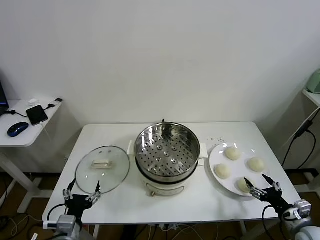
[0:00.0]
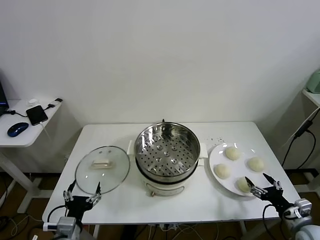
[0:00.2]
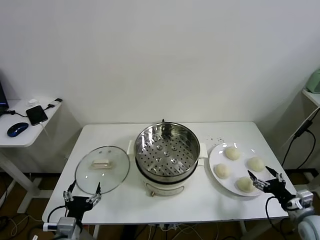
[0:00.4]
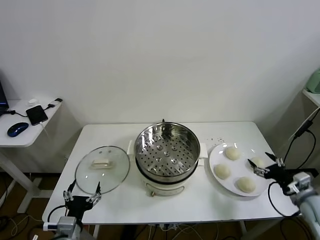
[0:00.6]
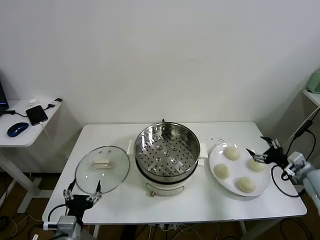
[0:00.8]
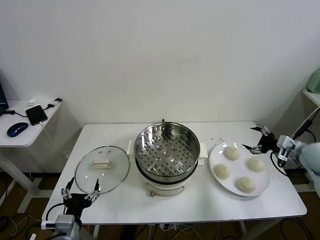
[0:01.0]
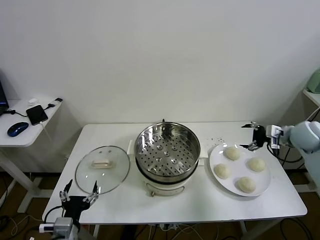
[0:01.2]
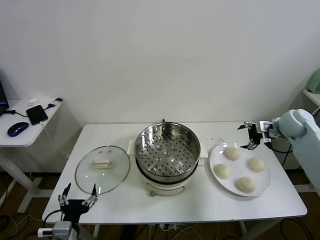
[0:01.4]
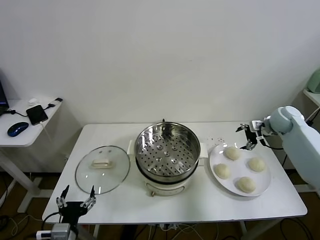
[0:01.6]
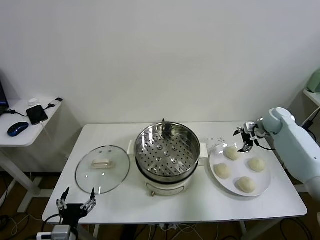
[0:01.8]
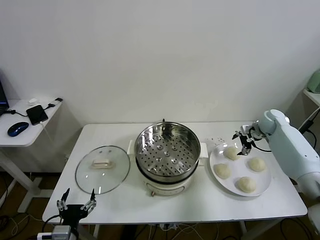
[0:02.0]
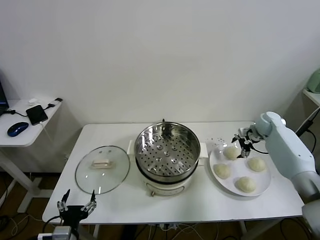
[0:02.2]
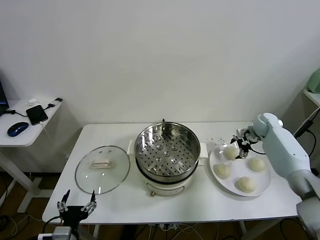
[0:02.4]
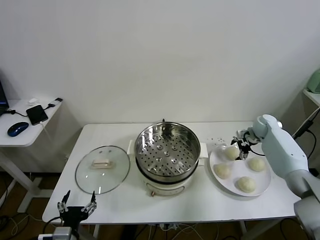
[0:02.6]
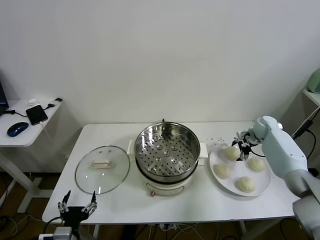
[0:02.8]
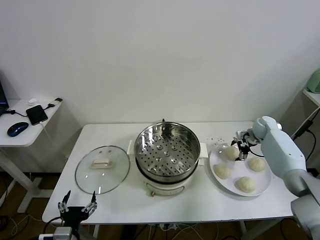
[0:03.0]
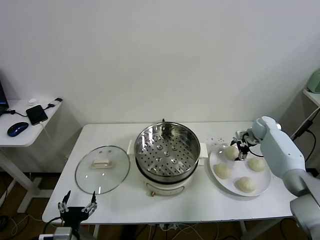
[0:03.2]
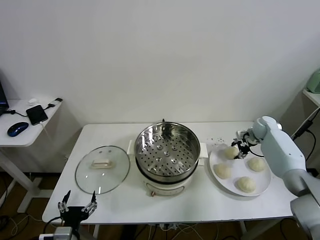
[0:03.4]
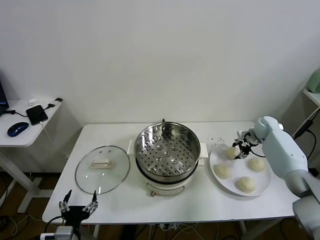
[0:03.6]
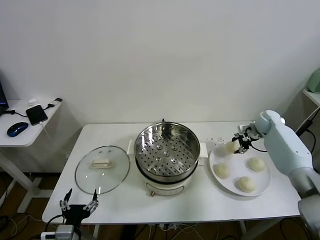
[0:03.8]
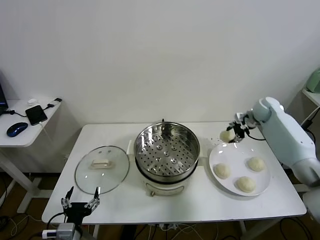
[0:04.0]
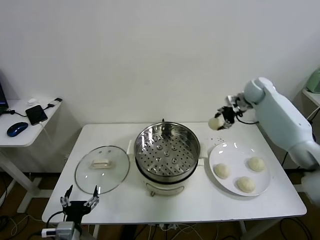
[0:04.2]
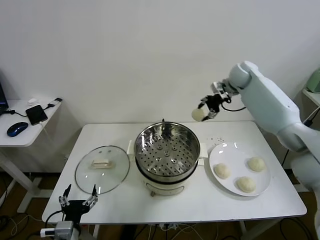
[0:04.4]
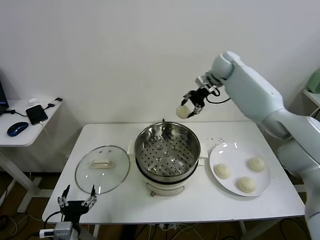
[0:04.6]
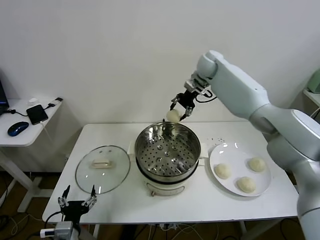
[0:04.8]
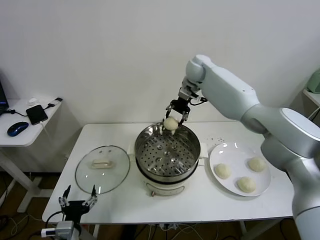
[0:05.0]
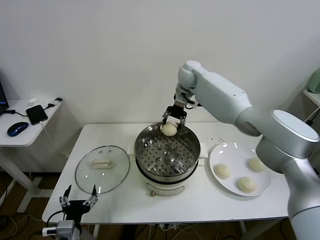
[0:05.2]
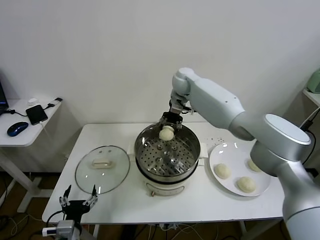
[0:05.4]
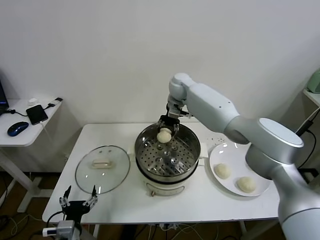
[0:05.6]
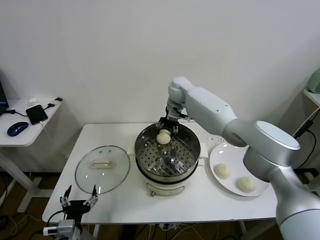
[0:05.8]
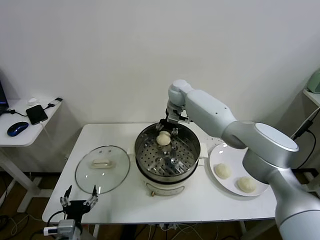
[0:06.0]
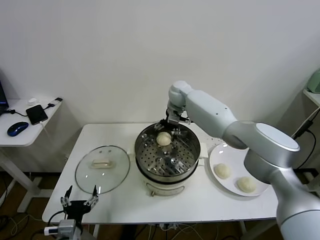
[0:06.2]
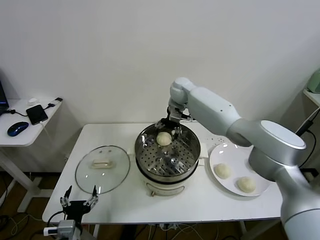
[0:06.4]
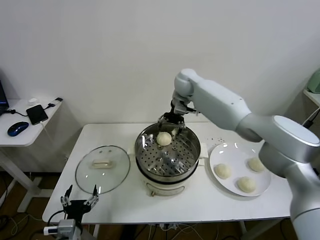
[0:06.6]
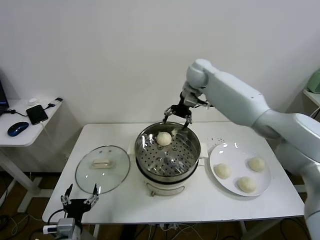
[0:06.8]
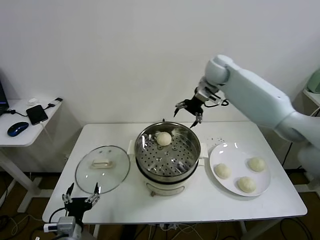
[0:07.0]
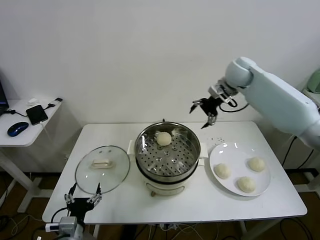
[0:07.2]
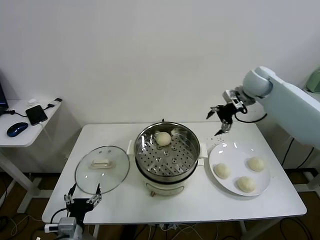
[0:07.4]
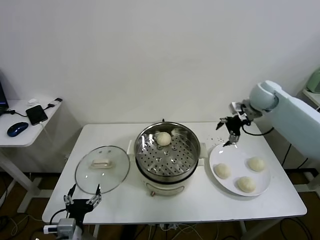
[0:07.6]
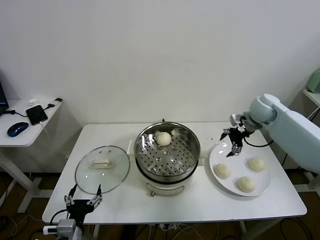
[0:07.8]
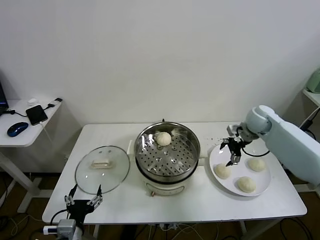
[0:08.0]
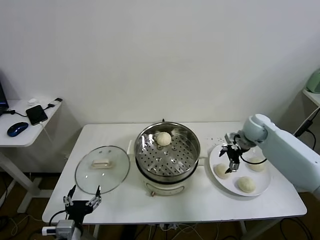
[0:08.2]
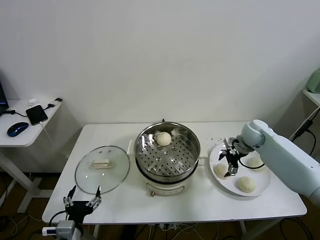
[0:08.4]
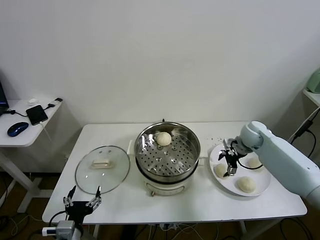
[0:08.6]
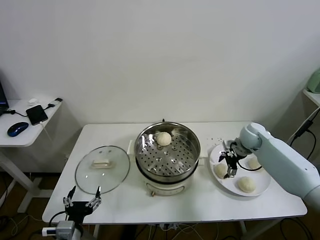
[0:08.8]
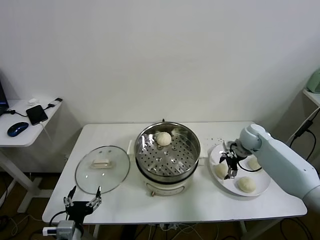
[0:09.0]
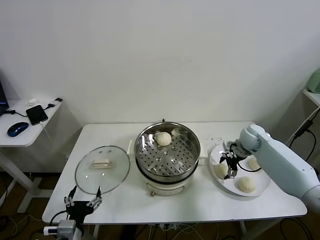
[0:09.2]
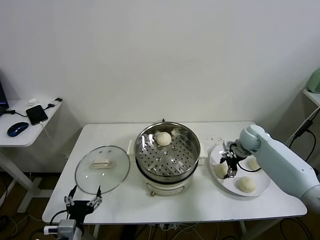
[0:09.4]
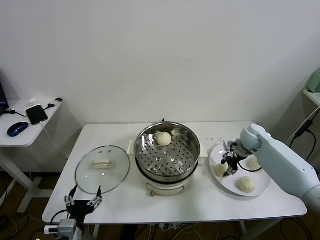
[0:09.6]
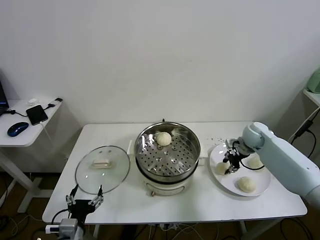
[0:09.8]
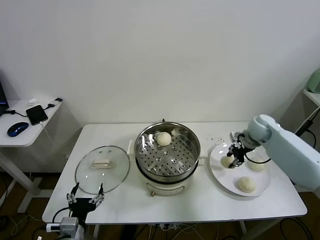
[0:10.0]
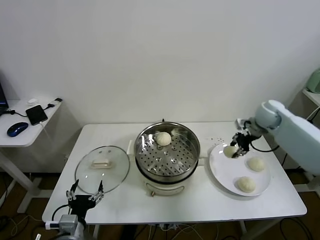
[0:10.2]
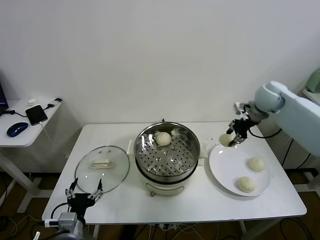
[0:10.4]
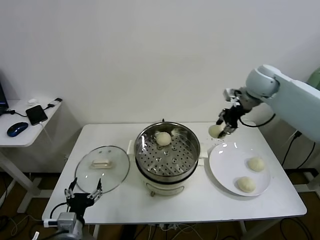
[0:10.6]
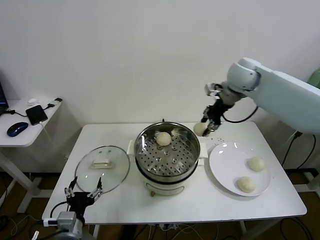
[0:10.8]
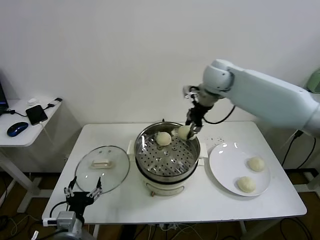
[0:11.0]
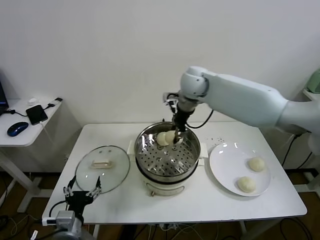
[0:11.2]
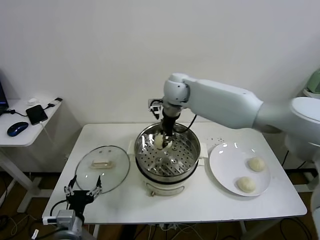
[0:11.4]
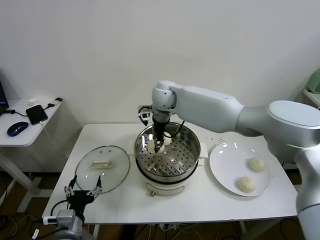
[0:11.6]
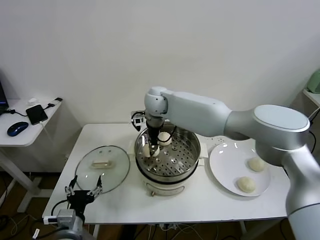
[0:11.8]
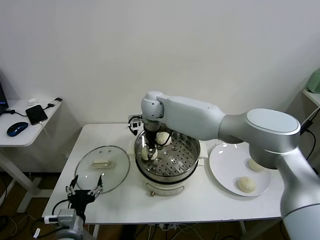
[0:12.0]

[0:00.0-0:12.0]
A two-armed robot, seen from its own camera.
Task of the whole recording: take steamed baozi put them in steamer.
Step, 0:00.0 to 0:03.4: Grasp the baozi in the plate with right gripper.
Step, 0:03.6 to 0:06.2: Place the baozi on the steamer with right gripper.
Step, 0:06.4 to 0:09.4: Grasp the baozi in the plate with right gripper.
0:01.6 to 0:03.0: The right gripper travels downward by approximately 10 cm.
0:03.0 to 0:04.4: The right gripper moves upward and to the left, about 30 cm, and closes its fingers.
0:04.4 to 0:06.0: The right gripper is displaced to the left and downward by about 20 cm.
0:06.0 to 0:07.6: The right gripper is displaced to the right by approximately 30 cm.
0:07.6 to 0:09.0: The right gripper shifts roughly 15 cm downward.
0:09.0 to 0:10.4: The right gripper shifts approximately 20 cm upward, and closes its fingers.
0:10.4 to 0:12.0: The right gripper shifts approximately 35 cm to the left.

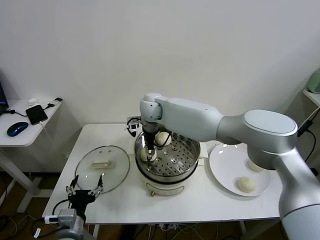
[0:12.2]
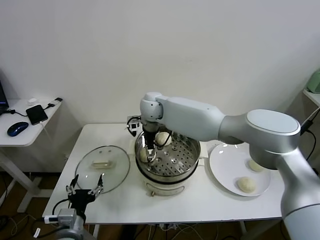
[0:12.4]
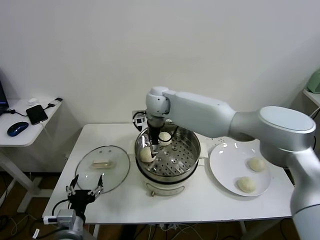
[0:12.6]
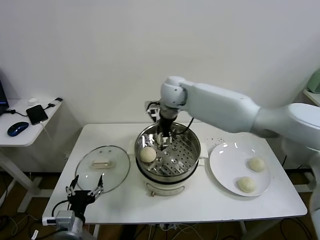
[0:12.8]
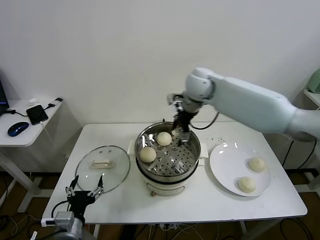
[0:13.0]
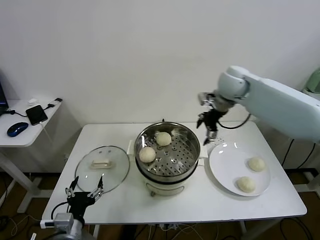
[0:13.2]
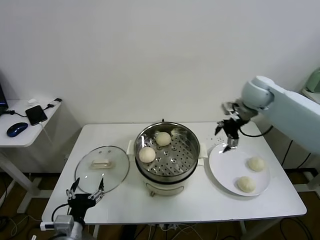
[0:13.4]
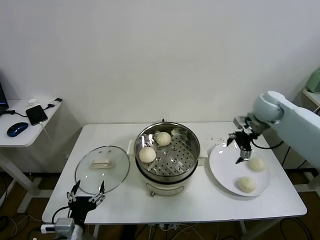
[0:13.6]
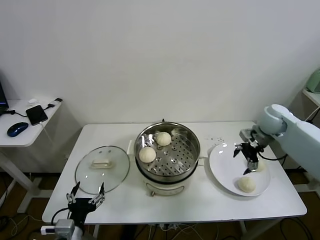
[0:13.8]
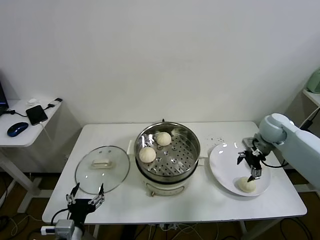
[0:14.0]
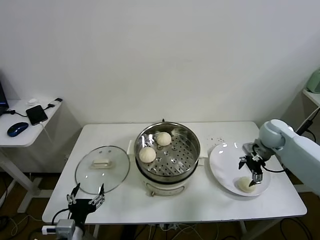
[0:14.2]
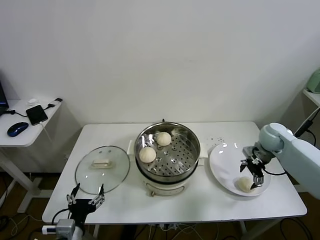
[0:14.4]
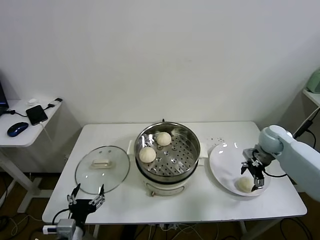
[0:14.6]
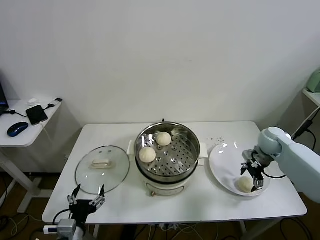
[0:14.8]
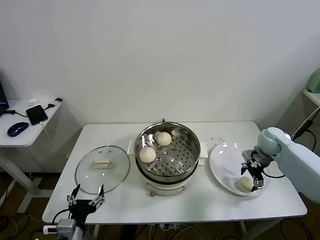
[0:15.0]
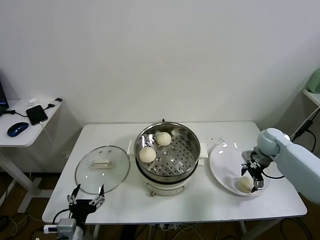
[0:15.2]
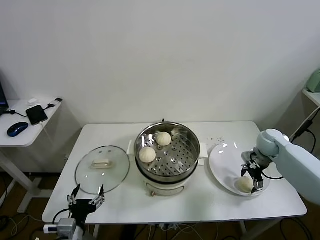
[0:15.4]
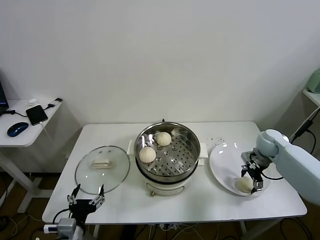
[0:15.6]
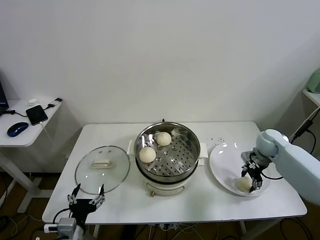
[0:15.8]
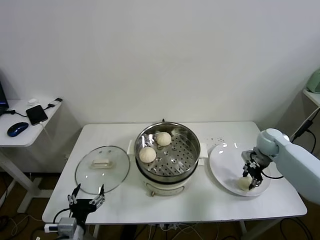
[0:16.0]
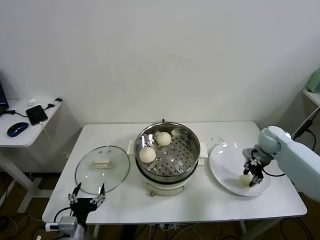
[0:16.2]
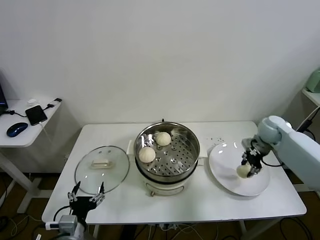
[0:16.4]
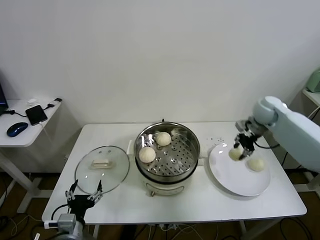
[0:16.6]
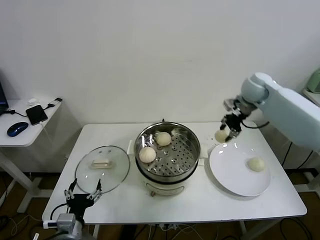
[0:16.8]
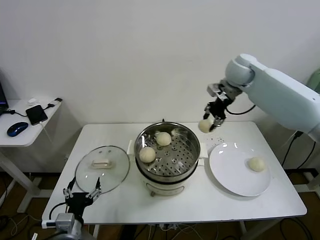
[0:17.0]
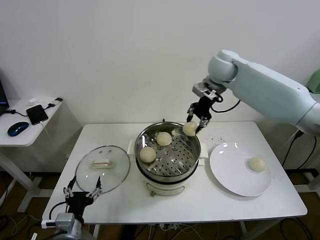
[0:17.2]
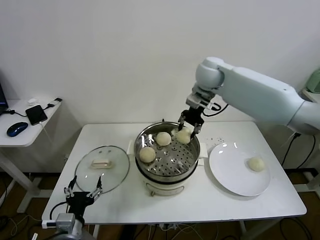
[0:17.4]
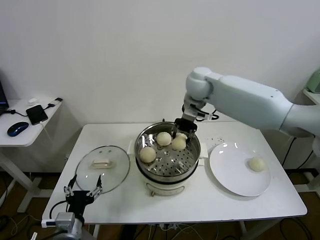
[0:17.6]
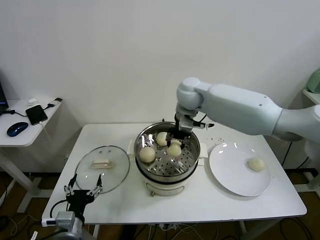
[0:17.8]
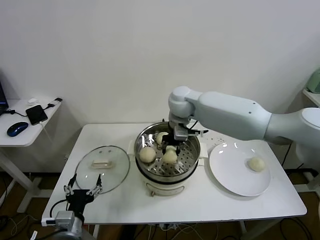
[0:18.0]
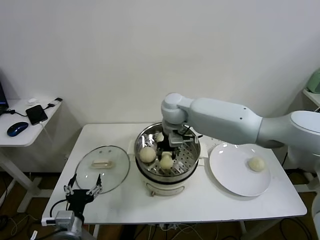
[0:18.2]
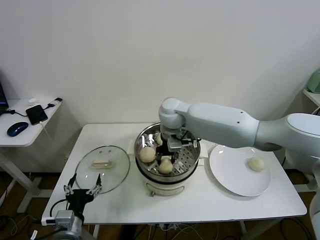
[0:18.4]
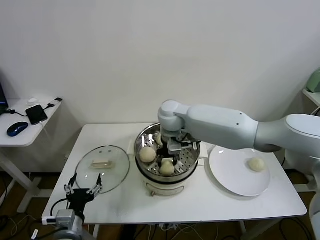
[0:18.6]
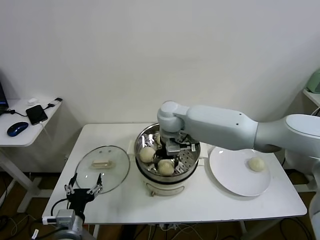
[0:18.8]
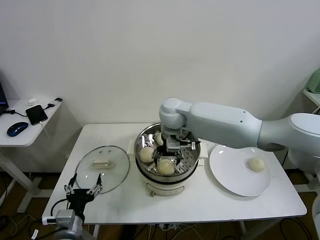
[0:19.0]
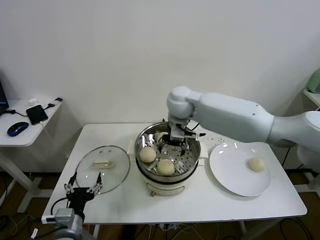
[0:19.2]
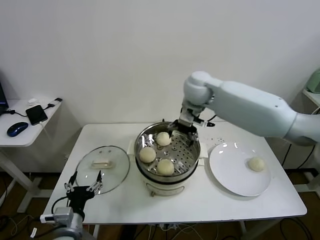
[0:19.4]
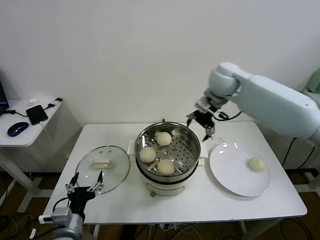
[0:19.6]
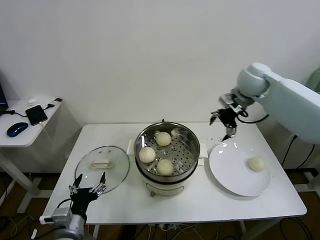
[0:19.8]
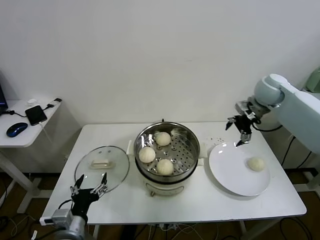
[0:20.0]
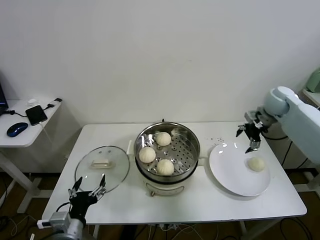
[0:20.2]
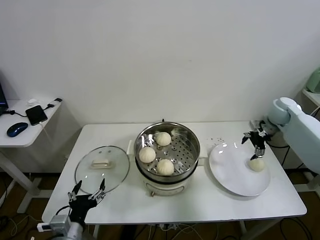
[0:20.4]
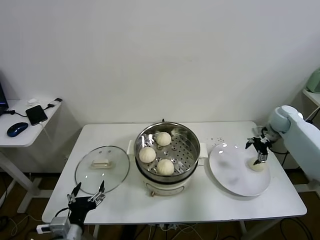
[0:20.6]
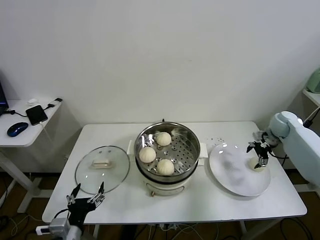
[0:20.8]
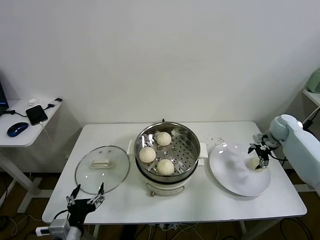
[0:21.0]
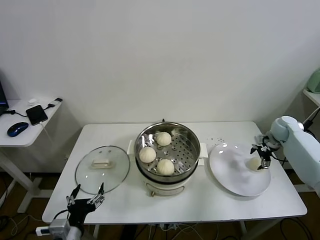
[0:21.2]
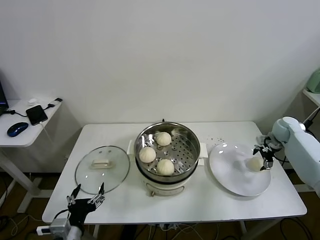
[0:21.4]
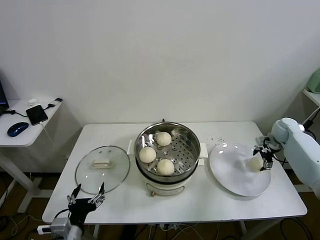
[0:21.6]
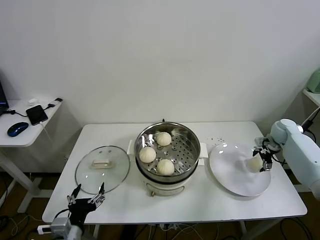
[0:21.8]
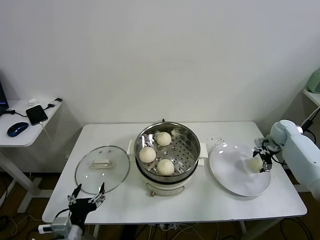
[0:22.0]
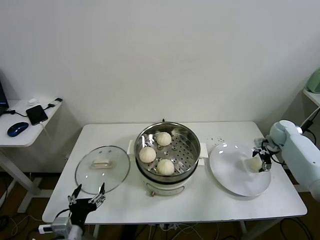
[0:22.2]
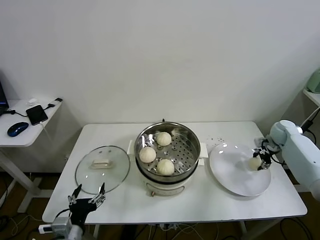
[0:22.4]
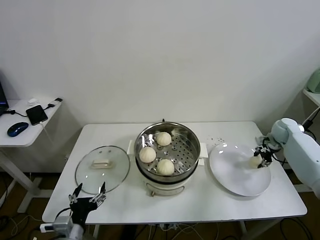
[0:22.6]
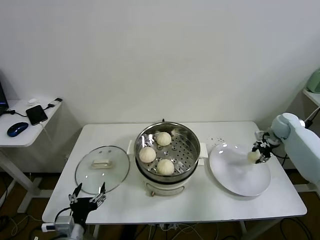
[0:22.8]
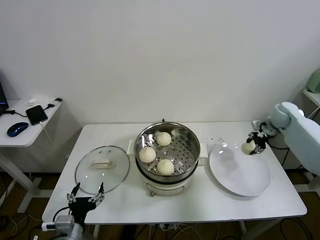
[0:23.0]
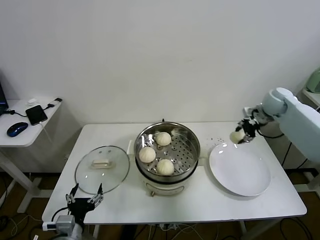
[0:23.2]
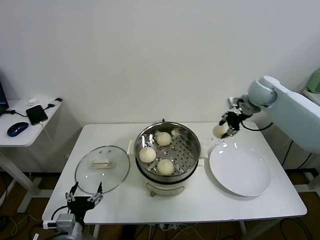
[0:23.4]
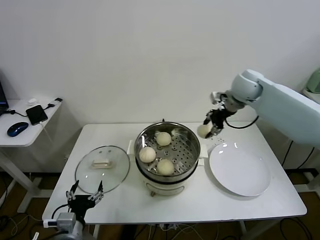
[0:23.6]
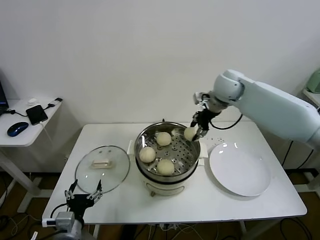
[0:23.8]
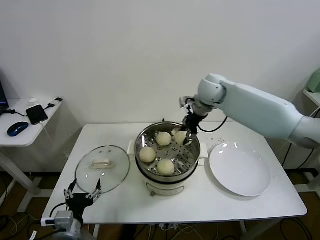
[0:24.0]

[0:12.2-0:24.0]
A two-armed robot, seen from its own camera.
Task of the whole recording: take steamed baozi put them in steamer.
Step, 0:12.6 to 0:15.6: Grasp the baozi in the plate with right gripper.
Step, 0:15.8 to 0:18.8: Place the baozi on the steamer with right gripper.
Step, 0:19.0 to 0:22.4: Grasp the baozi in the plate with right gripper.
0:12.2 to 0:13.6: The right gripper is displaced to the right by approximately 40 cm, and opens up.
0:13.6 to 0:15.2: The right gripper heads downward, covering some 15 cm.
0:15.2 to 0:16.6: The right gripper is displaced upward and forward by about 15 cm, and closes up.
0:16.6 to 0:18.2: The right gripper goes approximately 30 cm to the left.
0:18.2 to 0:19.6: The right gripper heads to the right and upward, covering roughly 20 cm, and opens its fingers.
0:19.6 to 0:21.0: The right gripper is displaced to the right and downward by approximately 35 cm.
0:21.0 to 0:22.6: The right gripper closes up.
0:22.6 to 0:24.0: The right gripper moves to the left and upward, roughly 40 cm.
